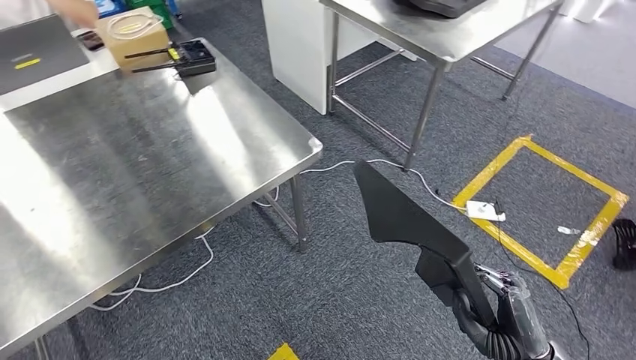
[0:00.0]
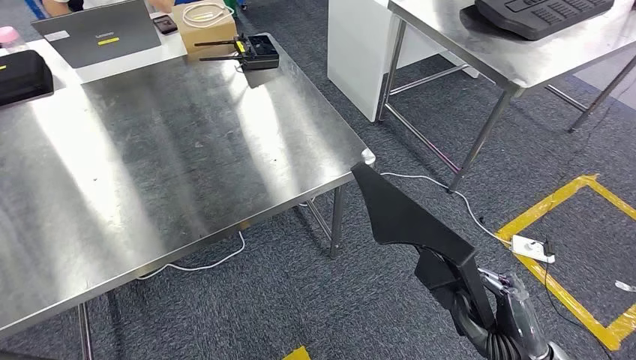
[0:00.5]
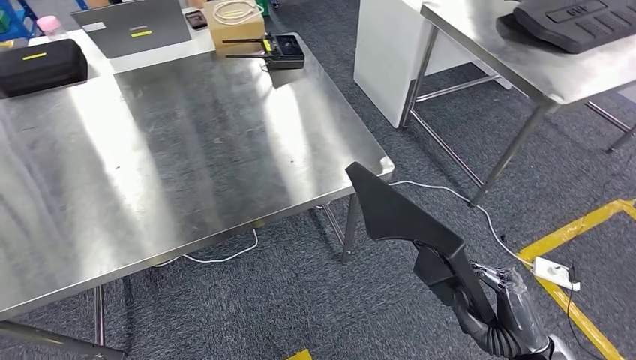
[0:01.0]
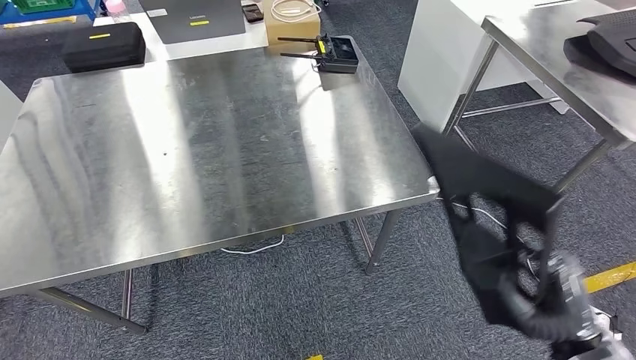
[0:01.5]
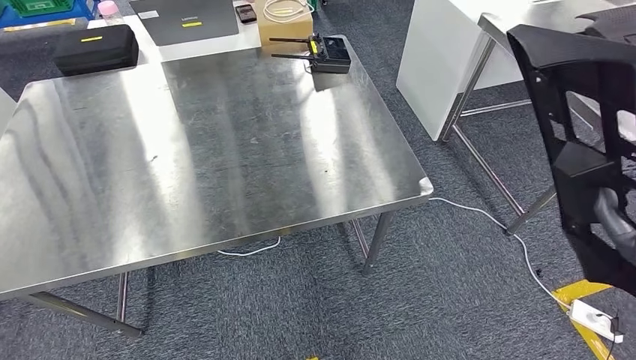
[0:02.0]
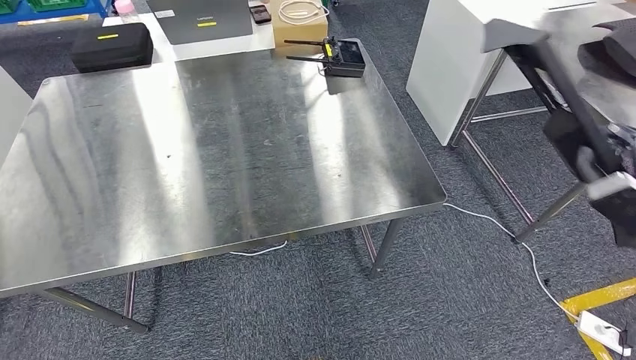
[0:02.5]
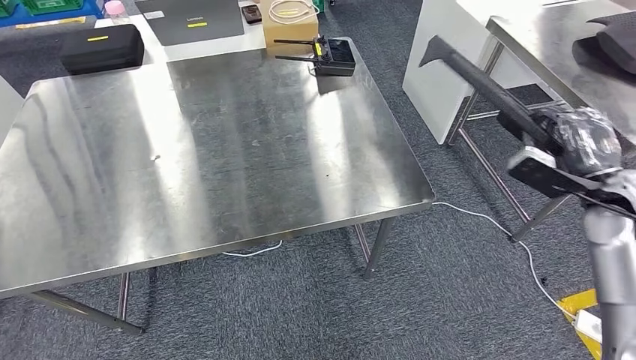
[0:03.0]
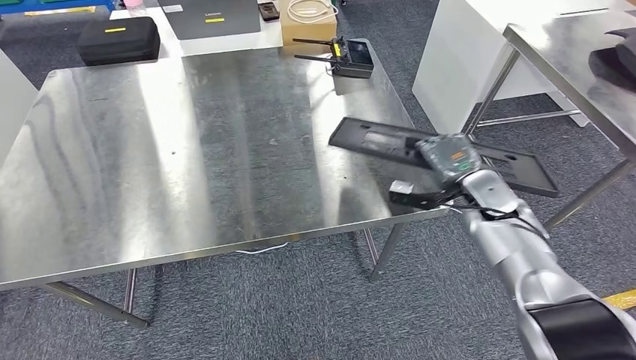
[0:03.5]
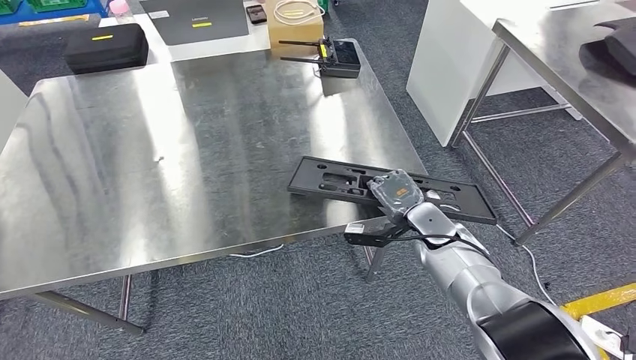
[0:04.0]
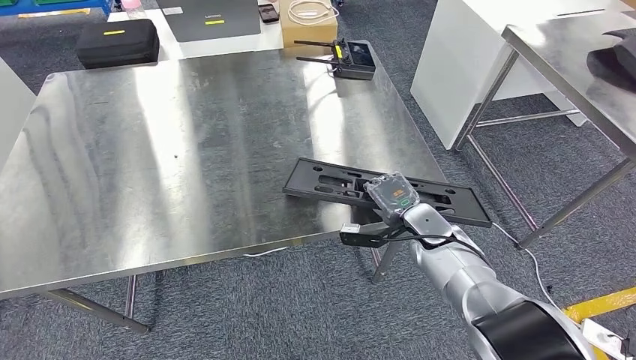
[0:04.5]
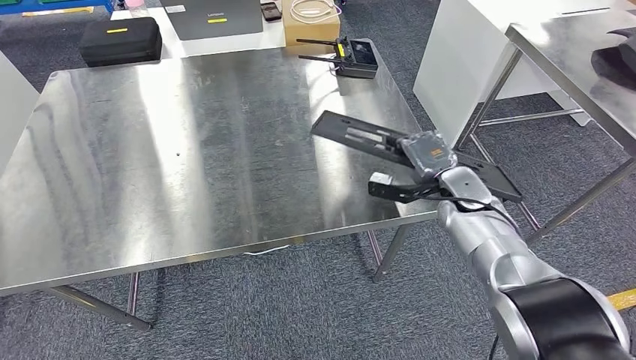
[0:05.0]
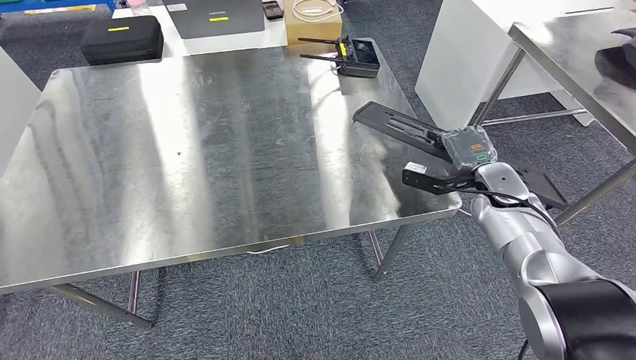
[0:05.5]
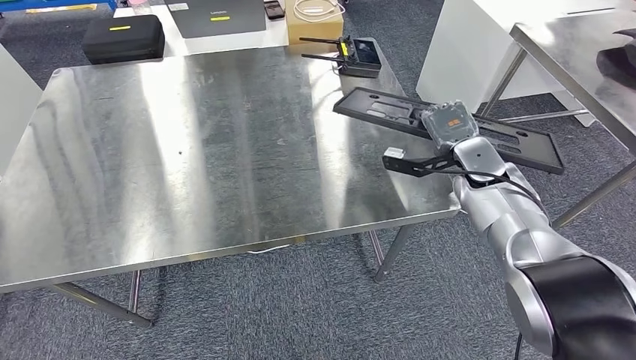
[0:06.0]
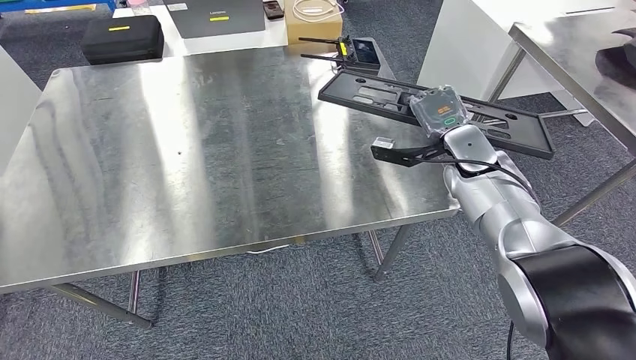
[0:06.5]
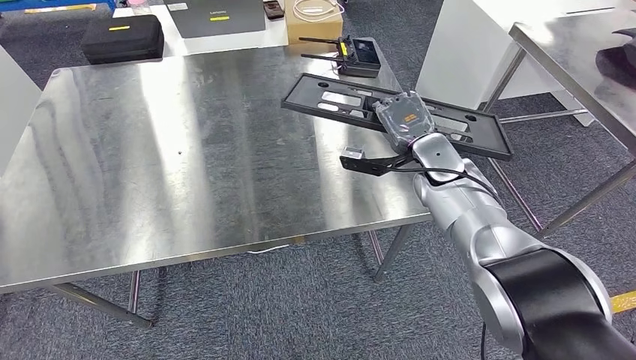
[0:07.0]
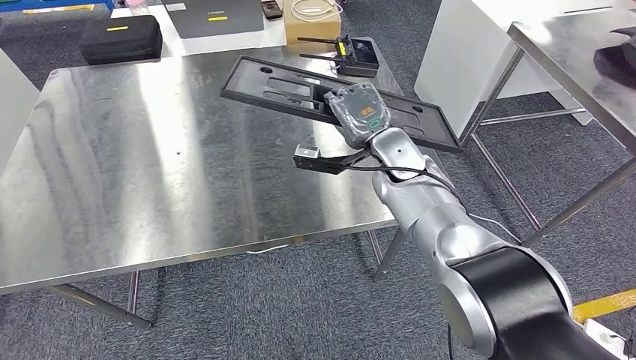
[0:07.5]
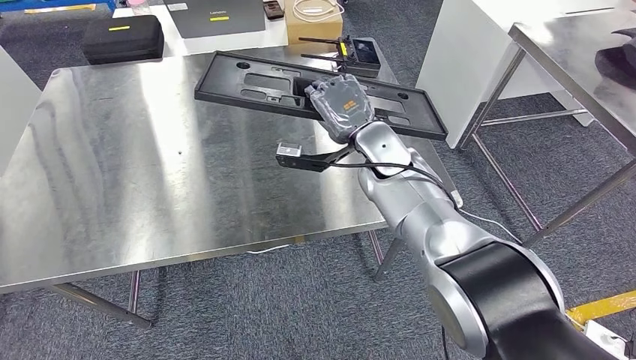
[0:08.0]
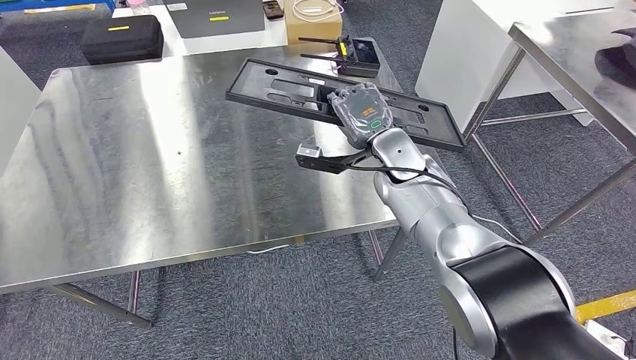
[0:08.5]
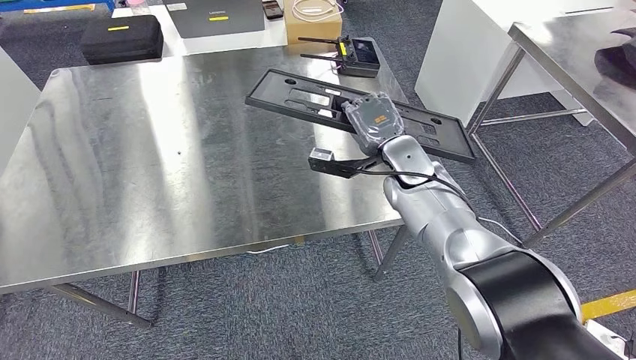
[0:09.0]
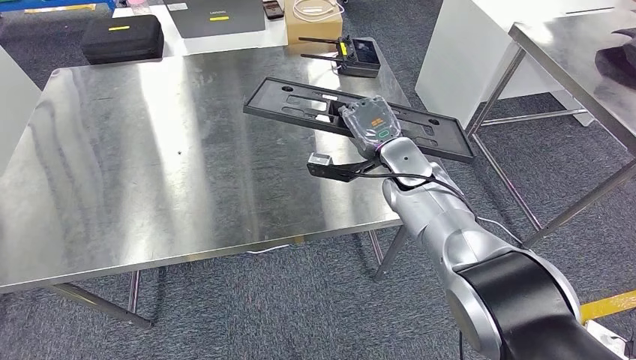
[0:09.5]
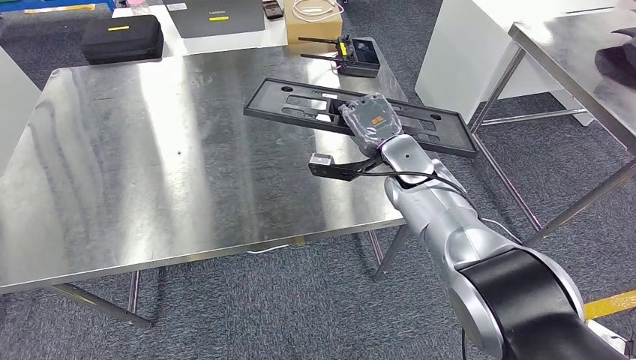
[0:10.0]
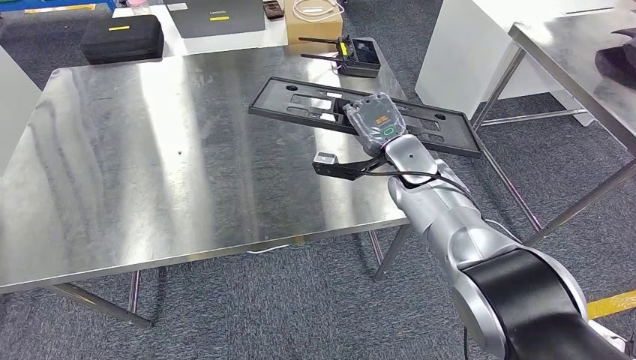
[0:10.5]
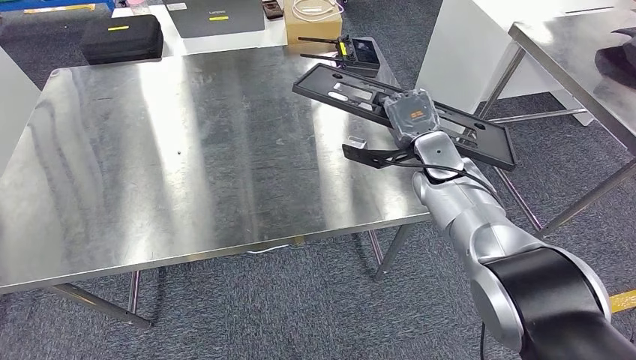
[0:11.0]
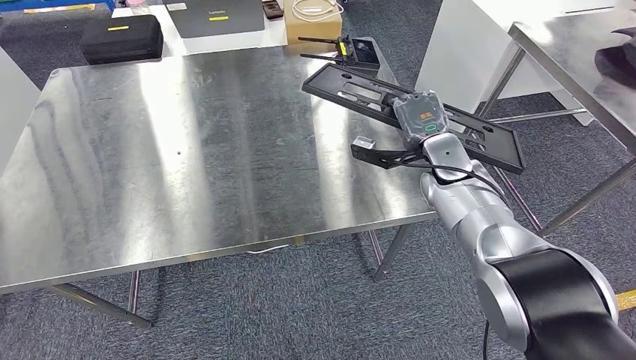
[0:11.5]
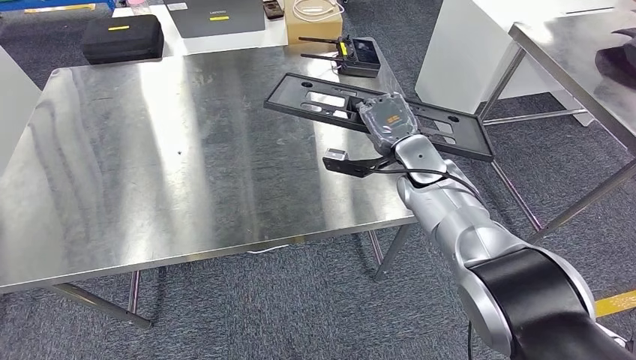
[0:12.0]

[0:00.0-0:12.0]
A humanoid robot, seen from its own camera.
Step, 0:00.0 to 0:02.0: Move the large material to the workbench.
0:08.0 to 0:10.0: The right hand ends up some 5 cm from where it was.

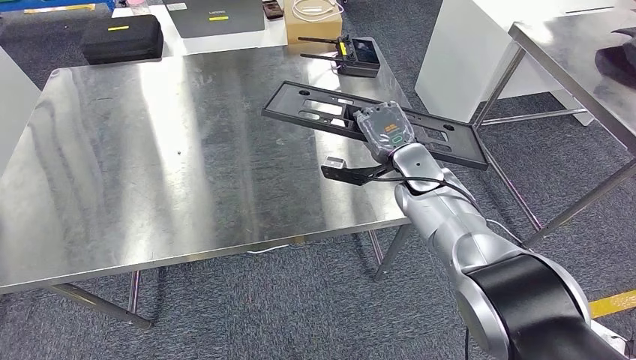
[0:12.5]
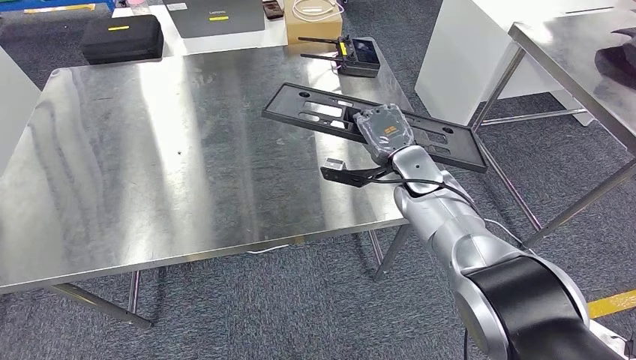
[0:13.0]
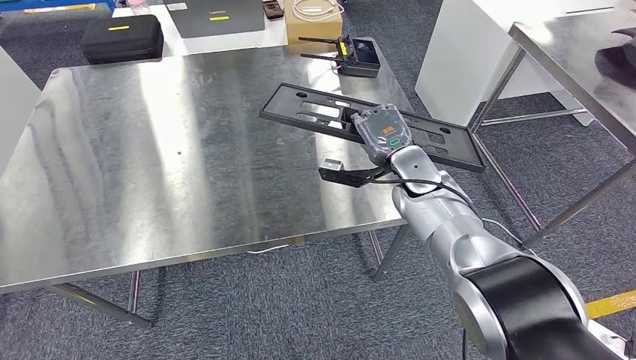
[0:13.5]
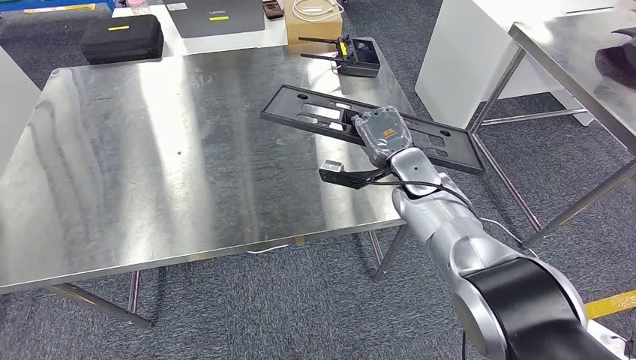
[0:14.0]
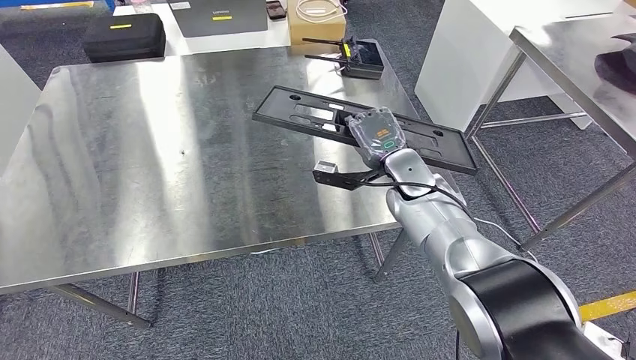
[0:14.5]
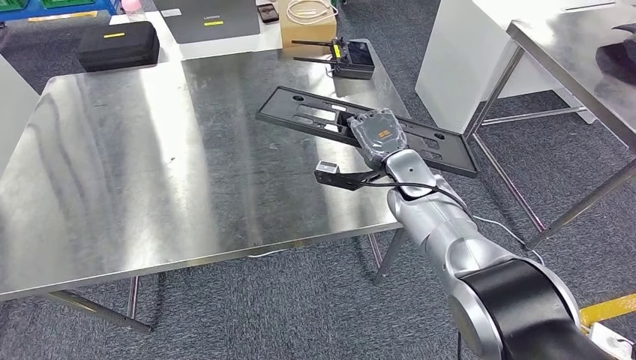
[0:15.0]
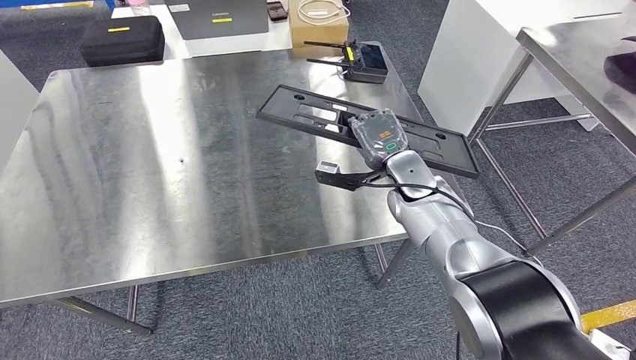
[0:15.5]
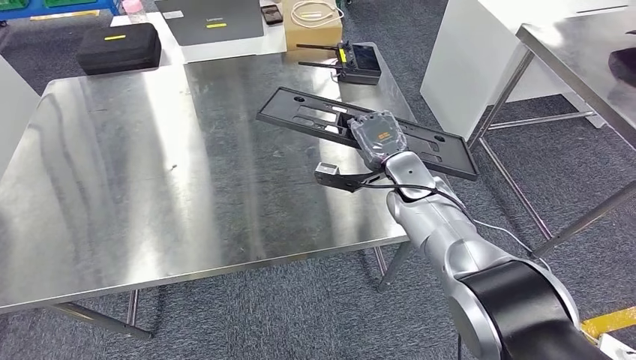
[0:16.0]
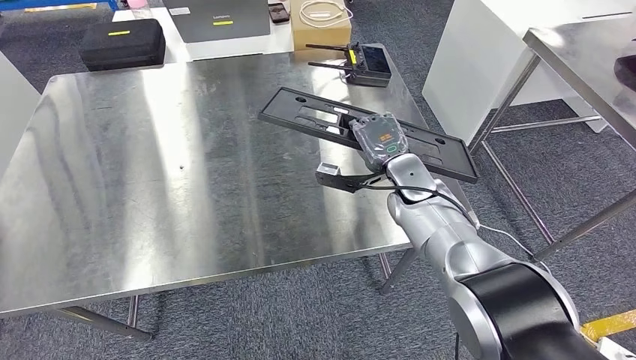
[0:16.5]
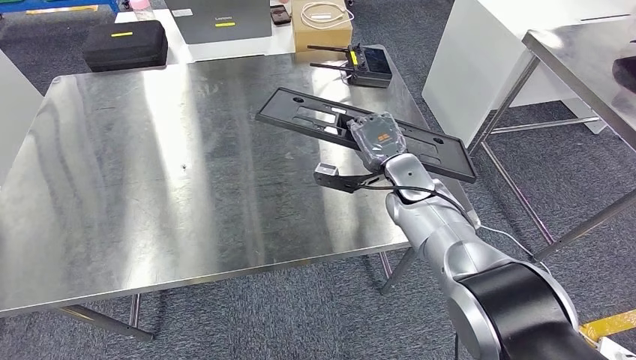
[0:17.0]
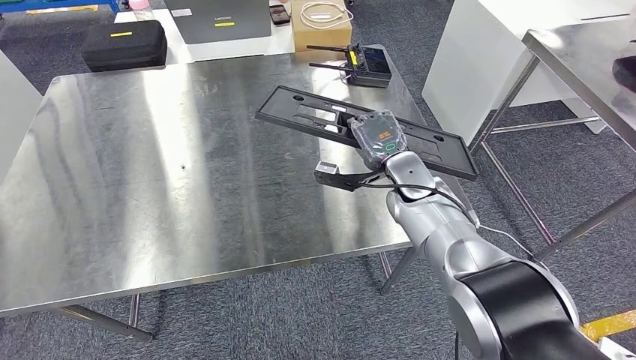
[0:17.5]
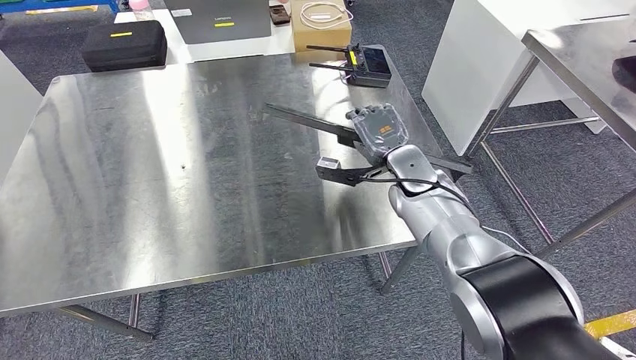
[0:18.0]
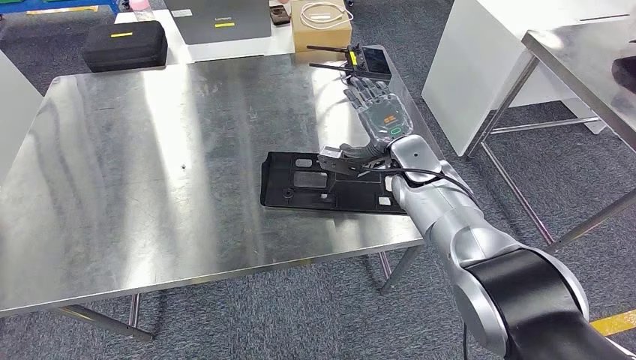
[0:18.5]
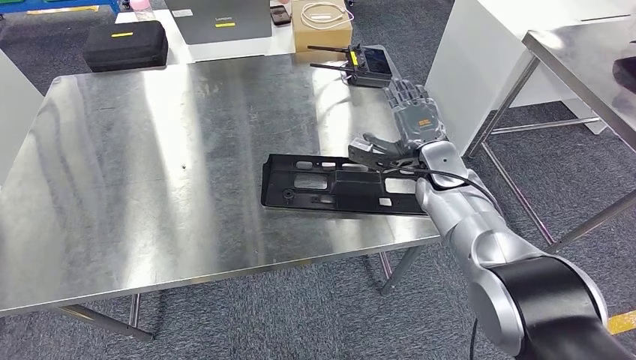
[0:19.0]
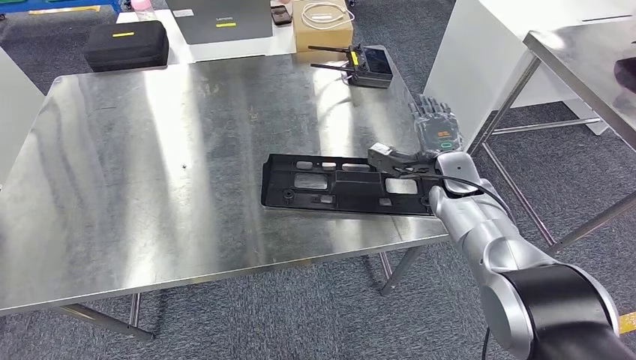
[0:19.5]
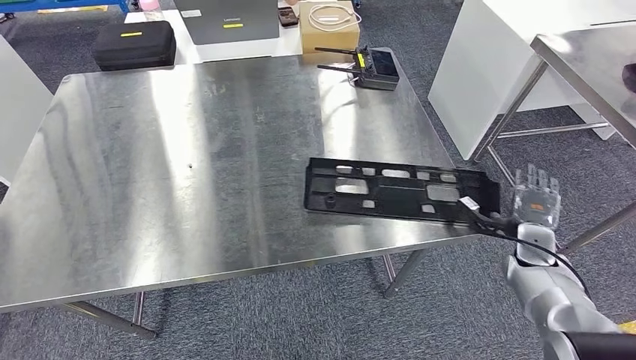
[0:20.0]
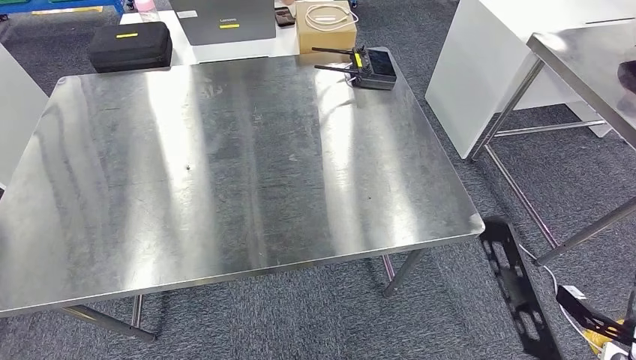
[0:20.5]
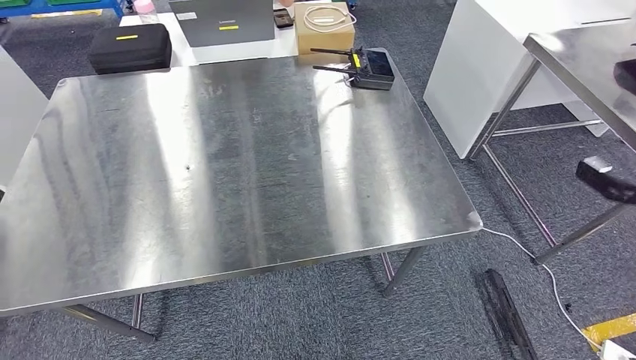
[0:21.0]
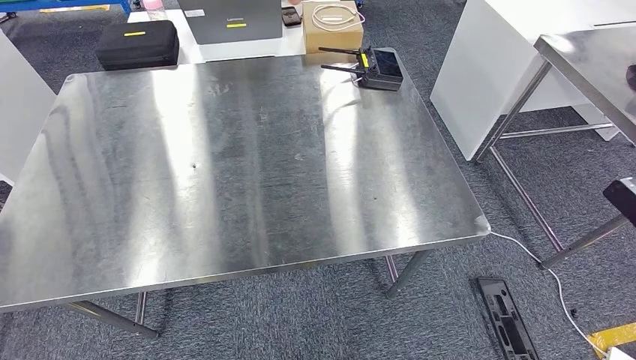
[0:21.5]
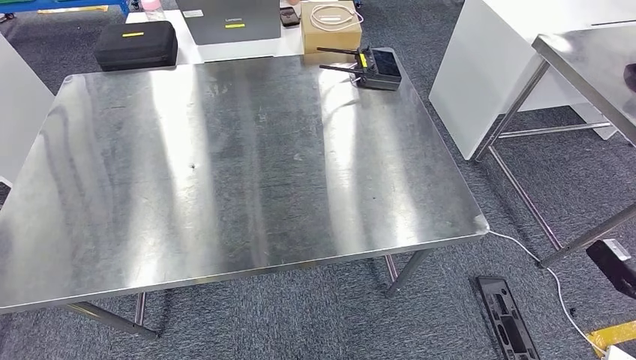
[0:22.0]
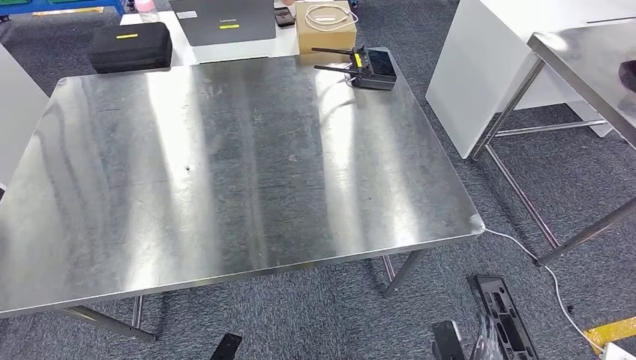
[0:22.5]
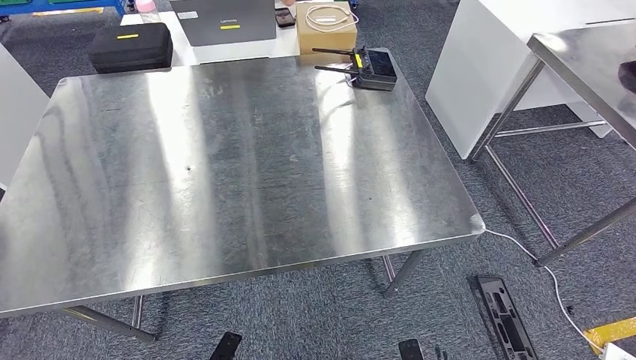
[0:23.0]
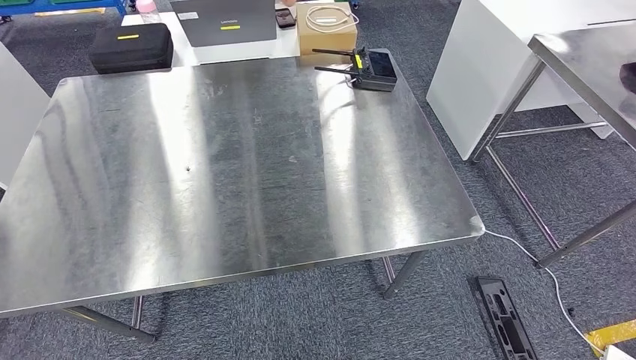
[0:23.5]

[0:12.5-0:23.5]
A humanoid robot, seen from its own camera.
Step, 0:12.5 to 0:19.5: Insert the large material into the corresponding slot on the workbench.
0:12.5 to 0:14.5: Both hands stay put.
0:16.0 to 0:18.0: Both hands stay about where they are.
0:20.0 to 0:21.5: The right hand is displaced to the right, upward and backward by some 25 cm.
0:21.5 to 0:23.5: The right hand heads to the left, downward and backward, covering roughly 60 cm.
